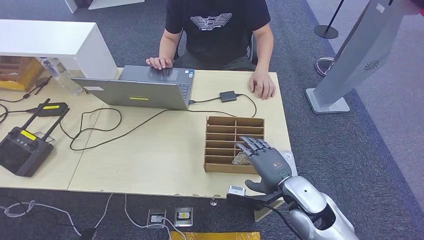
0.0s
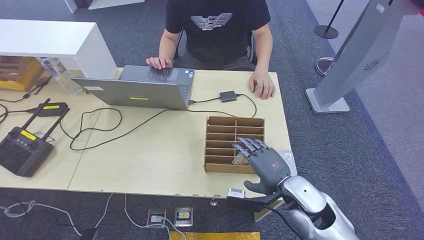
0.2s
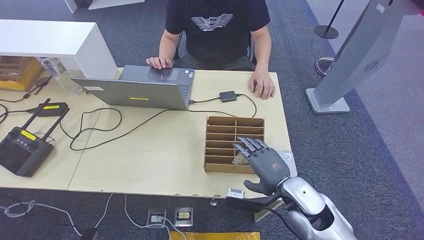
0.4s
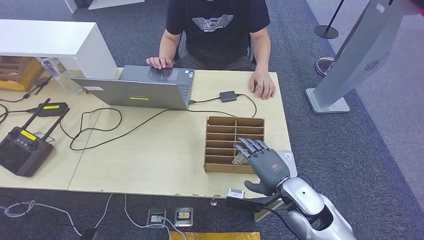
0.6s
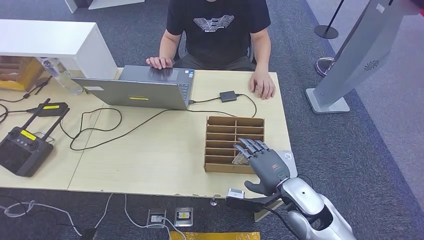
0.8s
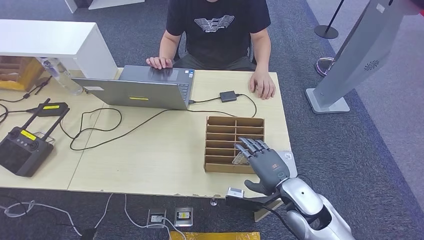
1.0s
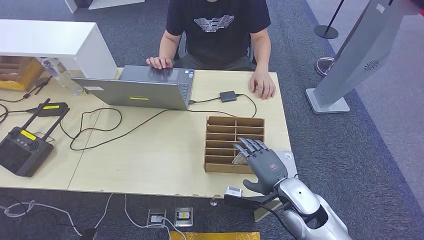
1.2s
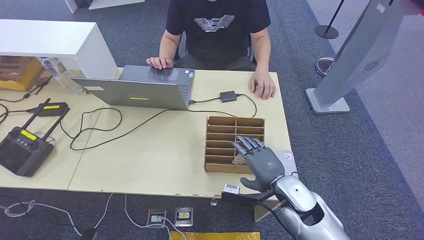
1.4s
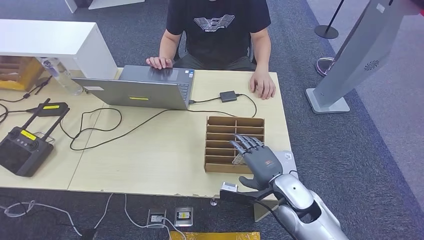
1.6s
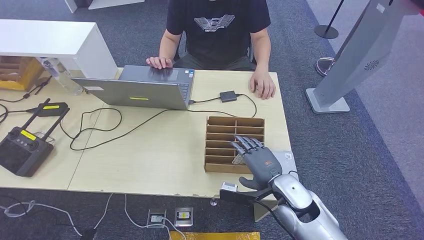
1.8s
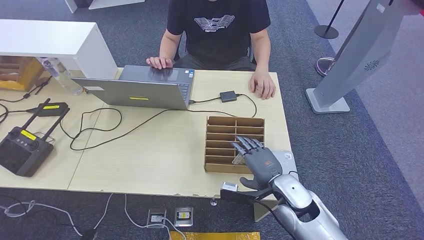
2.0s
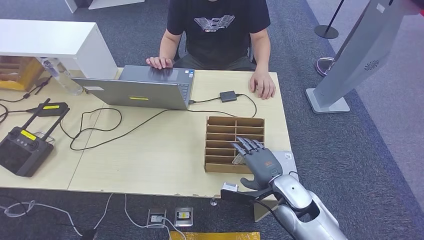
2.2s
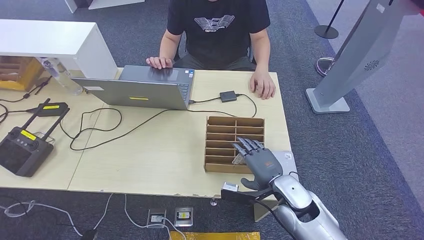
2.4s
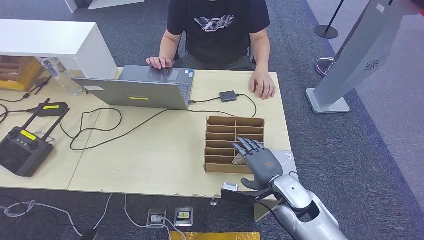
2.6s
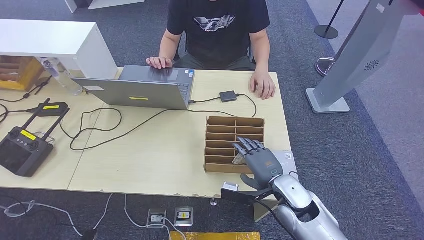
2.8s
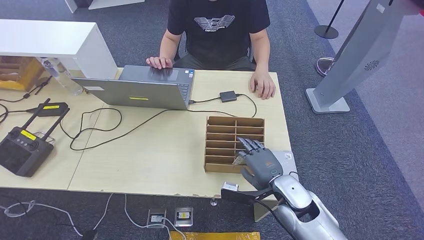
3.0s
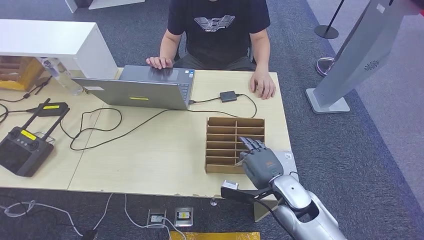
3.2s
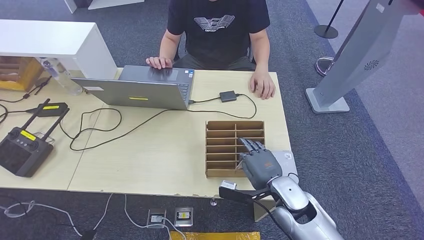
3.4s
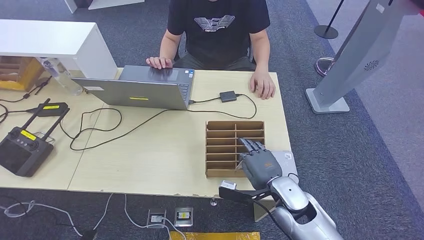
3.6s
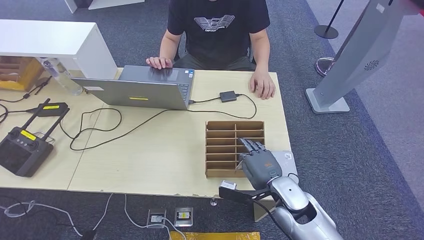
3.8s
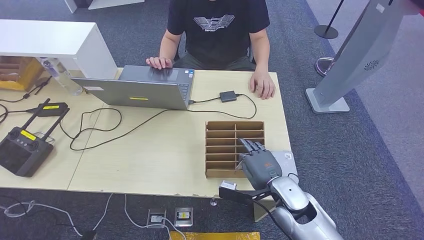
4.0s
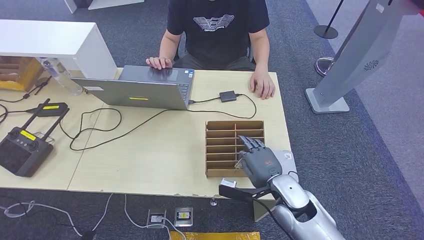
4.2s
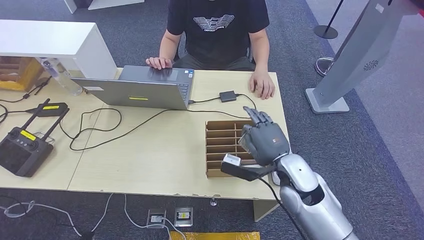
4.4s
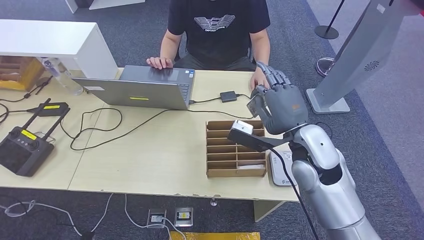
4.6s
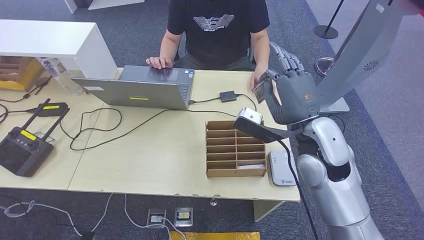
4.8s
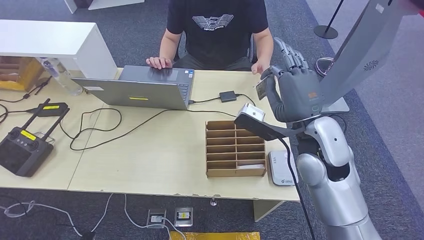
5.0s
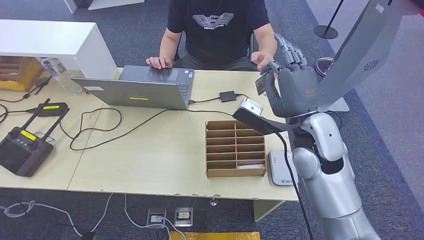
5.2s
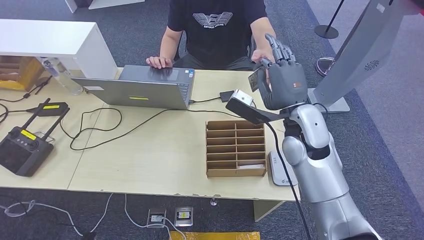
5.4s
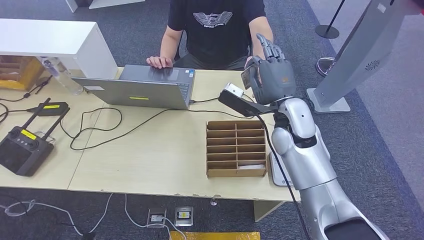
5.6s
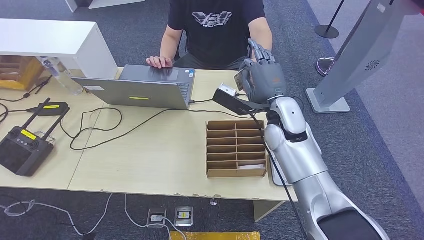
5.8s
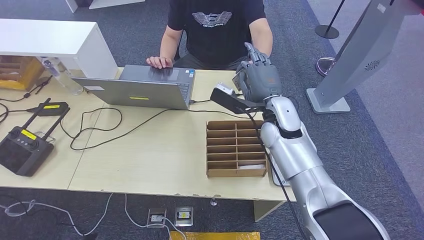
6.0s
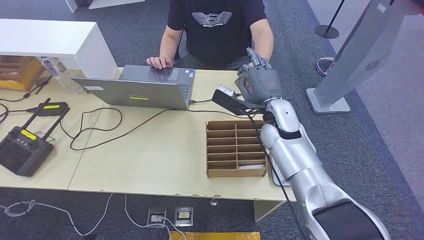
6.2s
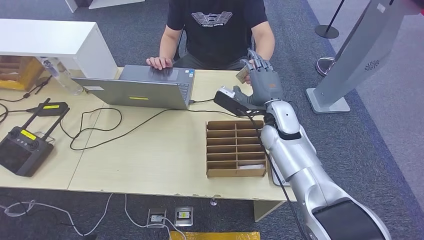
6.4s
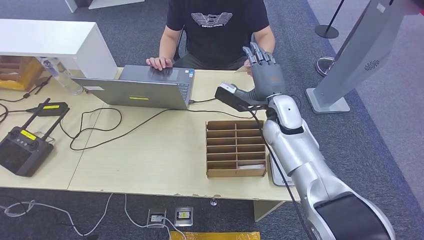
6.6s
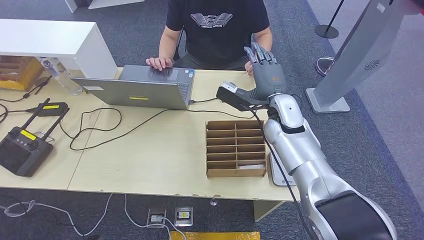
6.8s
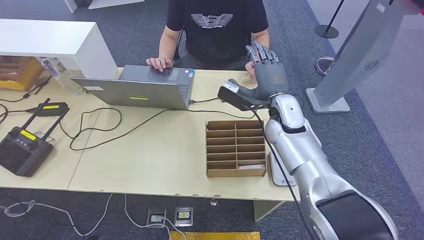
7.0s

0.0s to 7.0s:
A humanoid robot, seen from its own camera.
Step, 1.2s to 5.0s: Pick up the room key from the key card box.
Step, 5.2s to 6.8s: Hand the room key to the person.
0.0s to 2.8s: The hands make only small movements.
2.8s to 4.2s: Both hands stay put.
4.2s to 5.6s: The right hand travels upward and forward by about 20 cm.
5.6s to 7.0s: The right hand moves some 5 cm.
